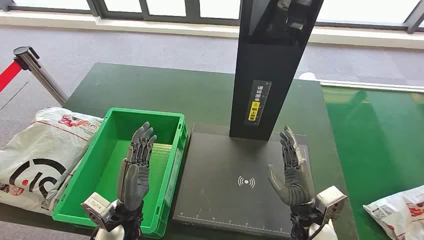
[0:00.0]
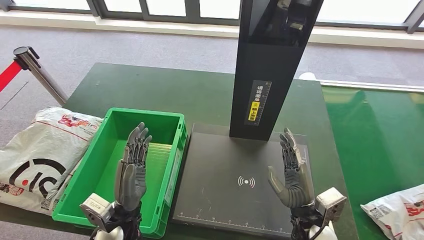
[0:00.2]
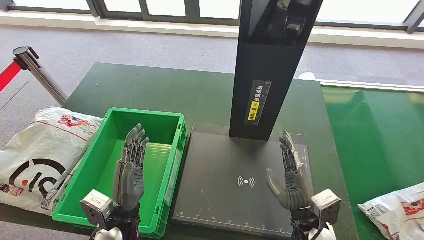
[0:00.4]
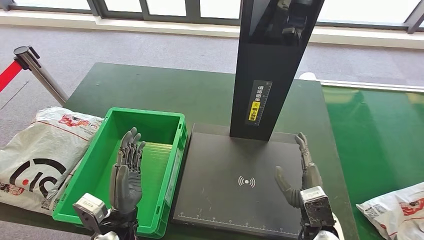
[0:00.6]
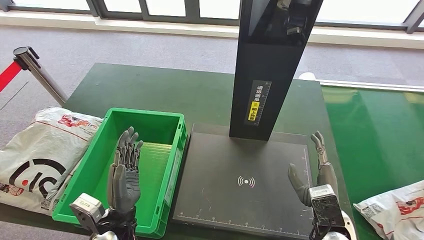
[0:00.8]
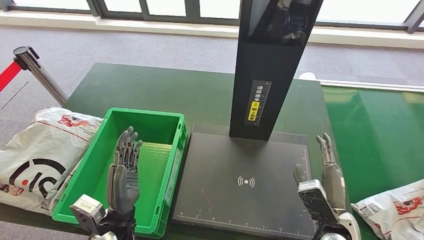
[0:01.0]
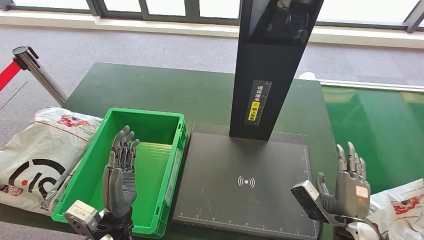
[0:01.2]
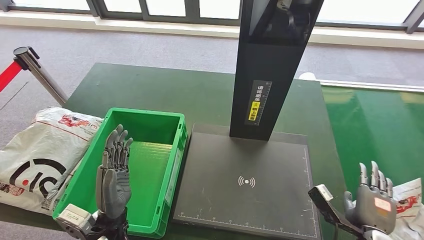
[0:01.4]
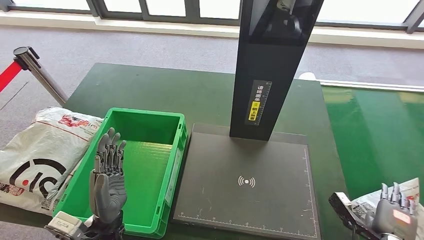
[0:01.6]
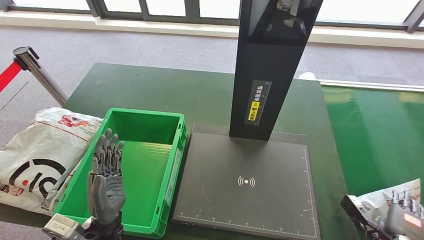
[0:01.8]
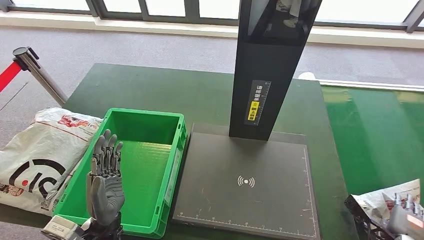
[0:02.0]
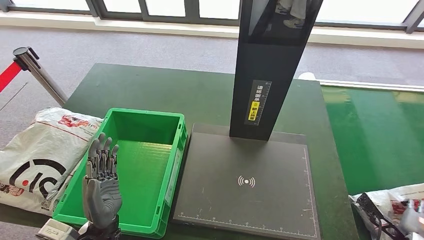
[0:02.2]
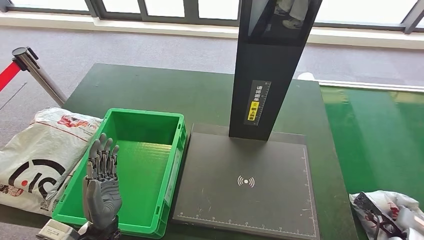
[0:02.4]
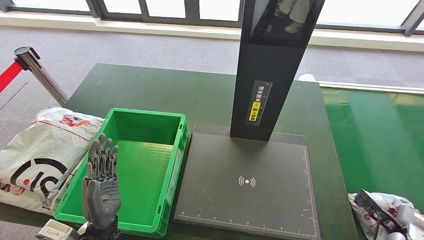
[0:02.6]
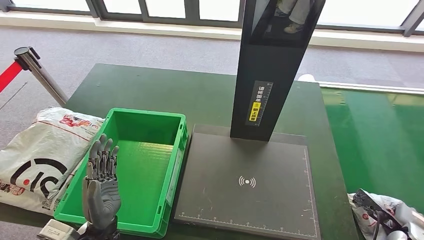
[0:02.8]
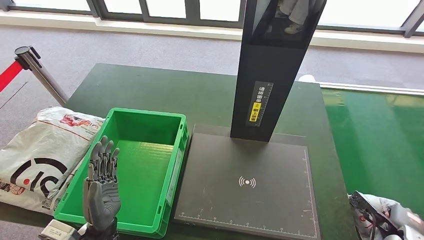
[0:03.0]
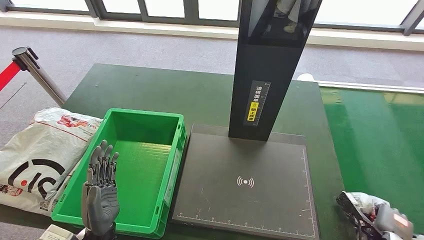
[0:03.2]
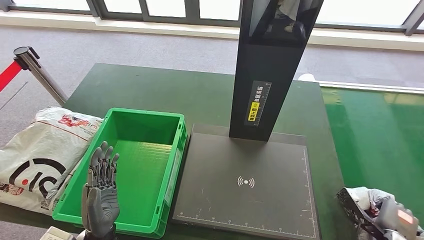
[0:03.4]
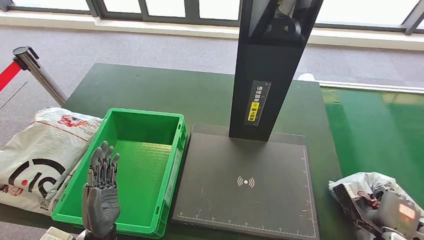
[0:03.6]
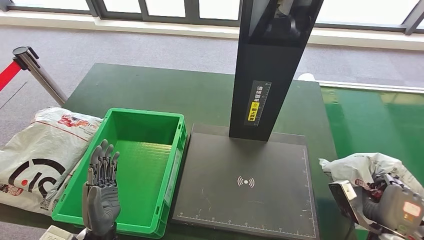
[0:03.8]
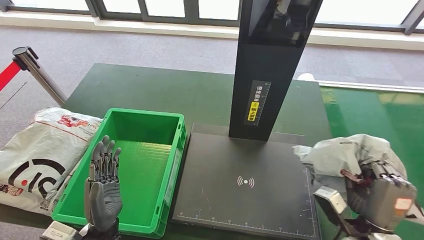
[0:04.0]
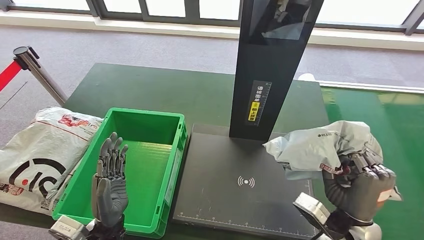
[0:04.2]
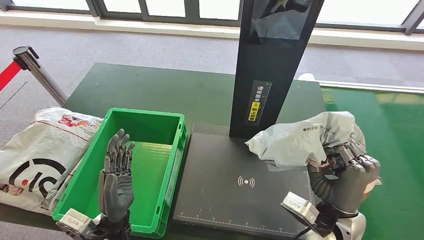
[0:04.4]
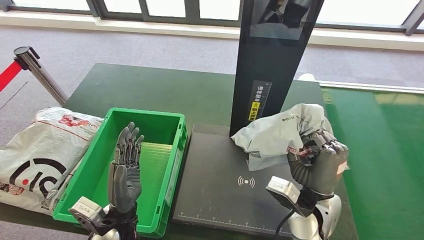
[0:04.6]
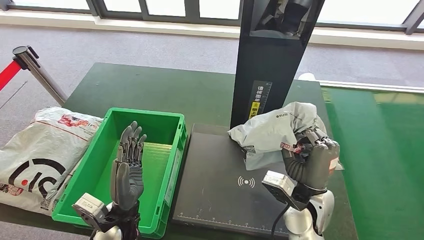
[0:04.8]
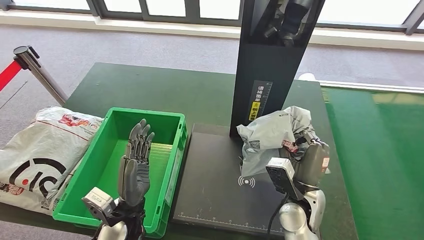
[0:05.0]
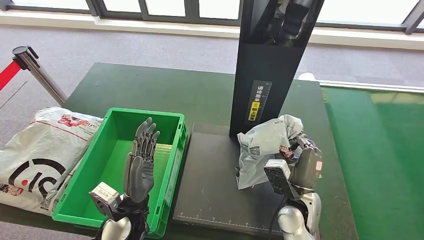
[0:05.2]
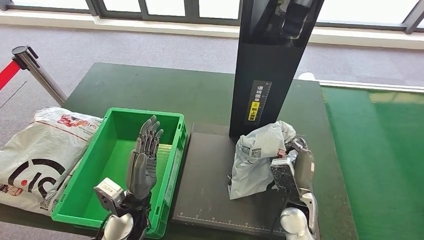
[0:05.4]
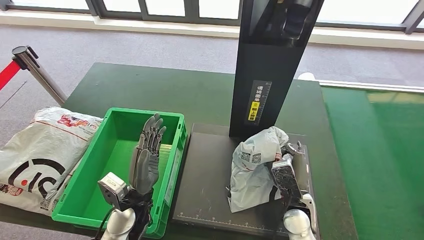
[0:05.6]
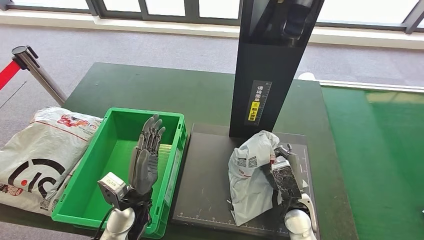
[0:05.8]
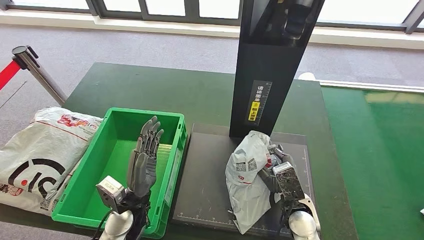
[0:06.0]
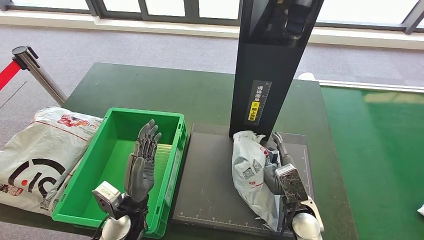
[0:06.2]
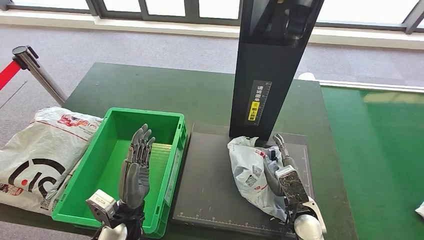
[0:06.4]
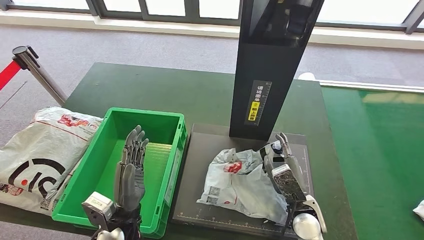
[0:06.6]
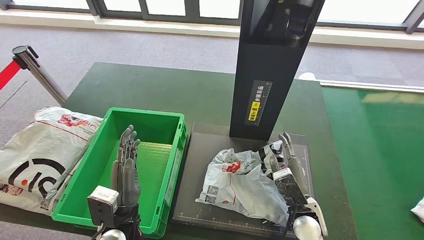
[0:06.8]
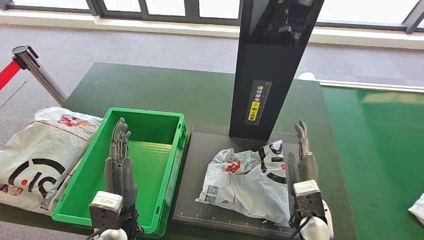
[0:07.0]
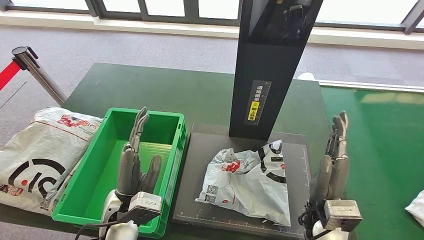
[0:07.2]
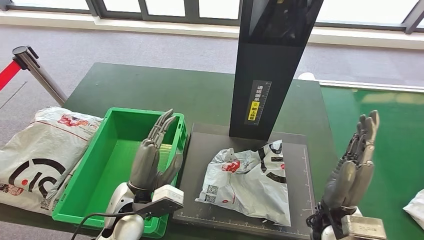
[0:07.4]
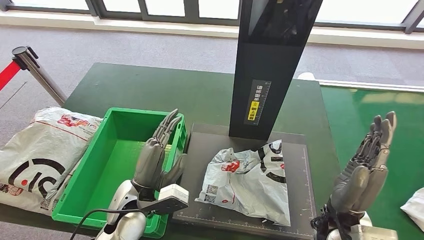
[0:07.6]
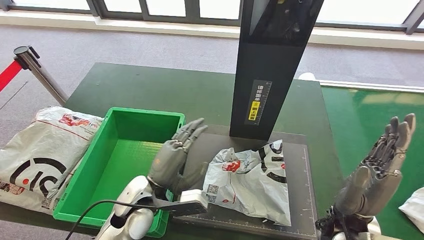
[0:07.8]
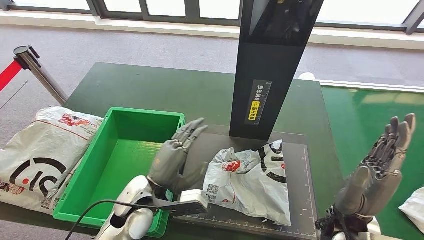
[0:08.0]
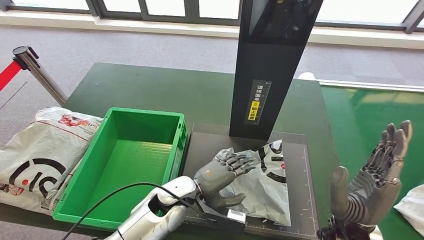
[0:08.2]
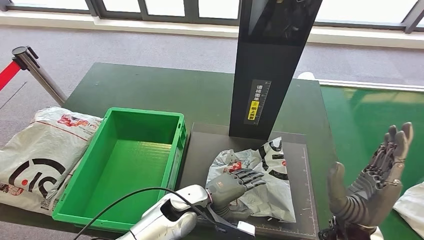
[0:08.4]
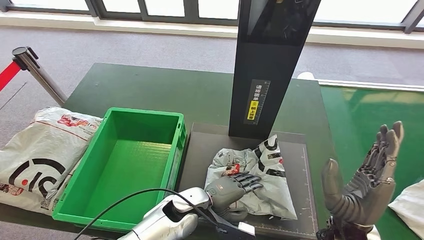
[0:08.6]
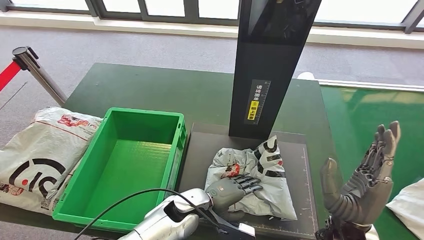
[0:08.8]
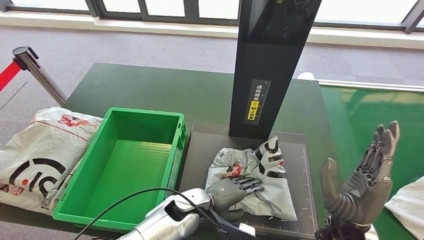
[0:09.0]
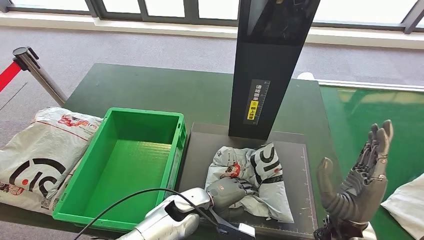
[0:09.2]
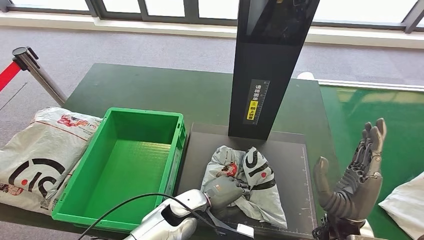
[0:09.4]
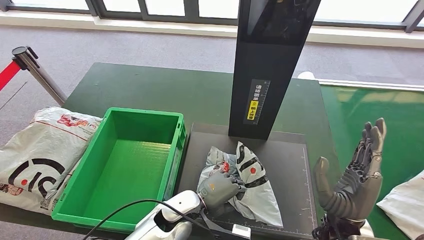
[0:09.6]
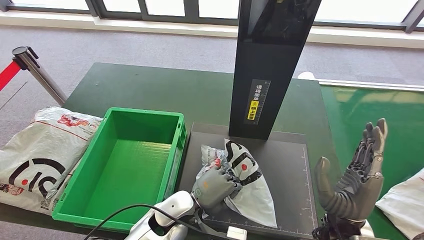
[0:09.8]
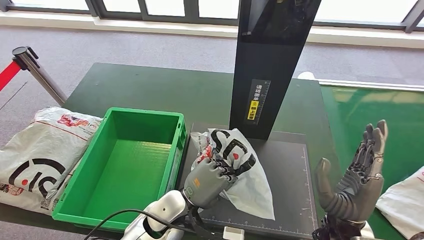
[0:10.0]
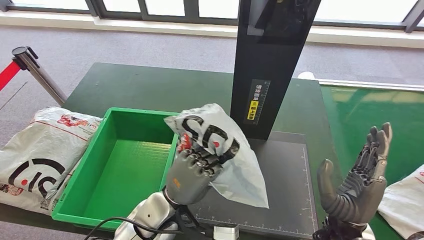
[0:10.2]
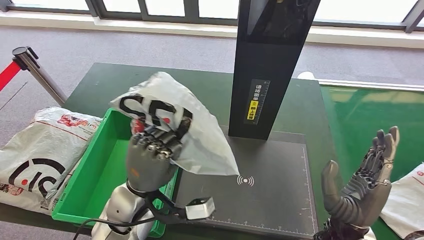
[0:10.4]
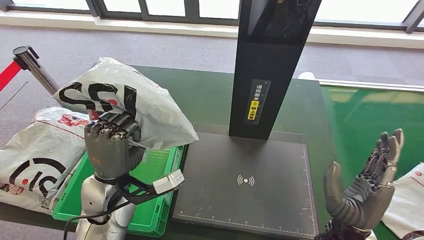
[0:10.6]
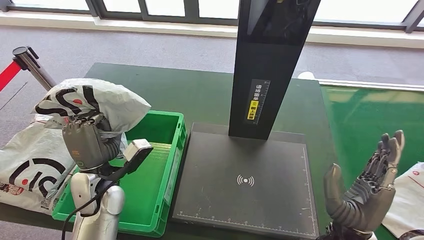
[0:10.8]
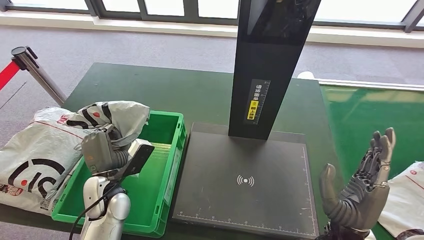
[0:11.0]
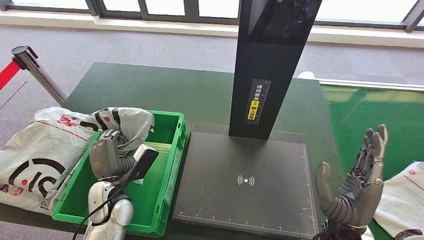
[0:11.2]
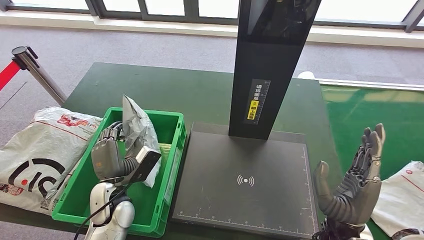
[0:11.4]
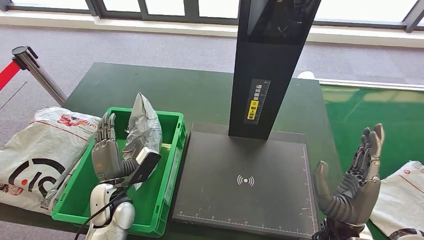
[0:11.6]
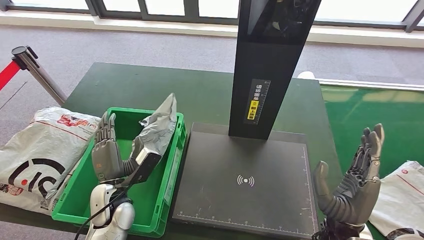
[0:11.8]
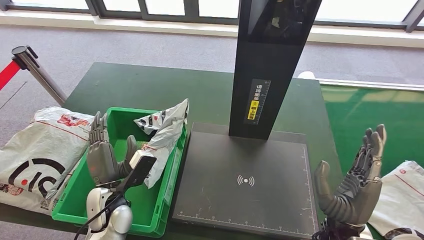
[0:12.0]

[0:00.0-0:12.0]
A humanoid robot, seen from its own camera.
Step, 0:00.0 to 0:03.6: Take the parcel off the conveyor belt.
Step, 0:03.8 to 0:06.8: Place the parcel onto the inbound machine.
Step, 0:07.2 to 0:10.0: Pick up the parcel from the inbound machine.
0:01.6 to 0:03.0: The right hand goes roughly 10 cm to the right and downward.
0:06.0 to 0:07.6: The left hand changes place by approximately 5 cm. Meanwhile the right hand shifts about 10 cm upward.
0:07.6 to 0:09.0: The left hand heads to the right and downward, covering approximately 15 cm.
0:10.4 to 0:12.0: The left hand moves downward and to the left, roughly 10 cm.

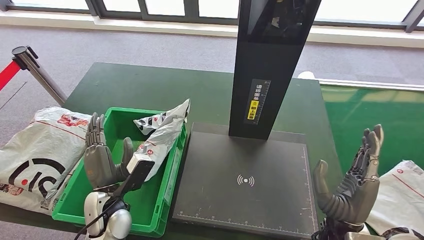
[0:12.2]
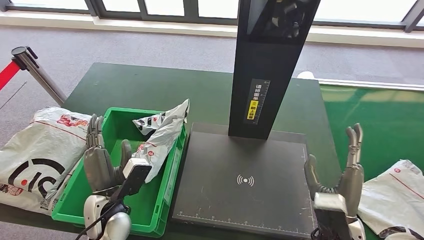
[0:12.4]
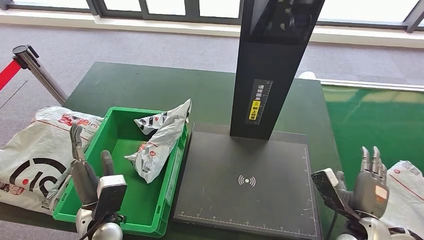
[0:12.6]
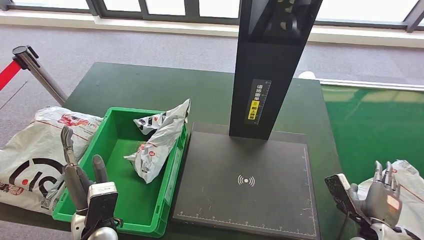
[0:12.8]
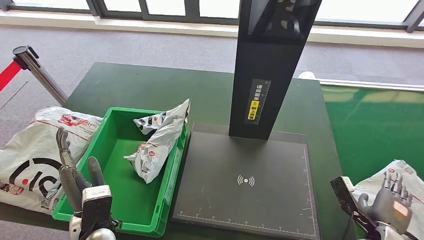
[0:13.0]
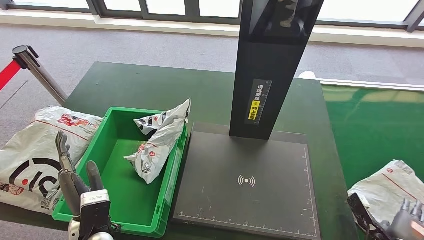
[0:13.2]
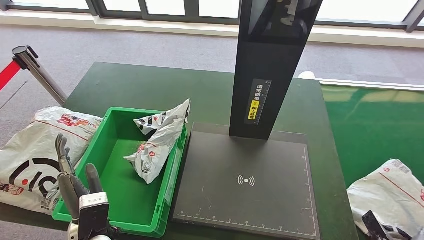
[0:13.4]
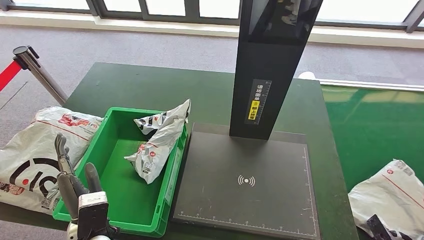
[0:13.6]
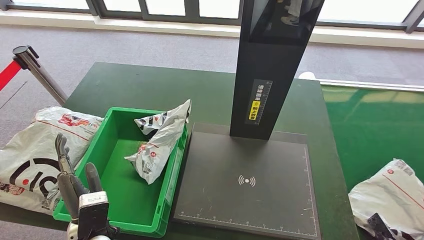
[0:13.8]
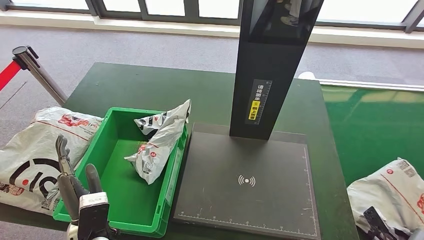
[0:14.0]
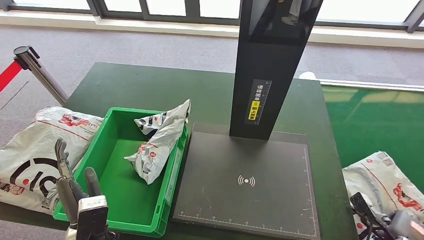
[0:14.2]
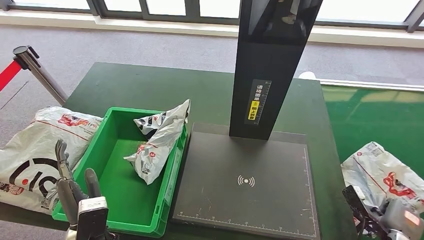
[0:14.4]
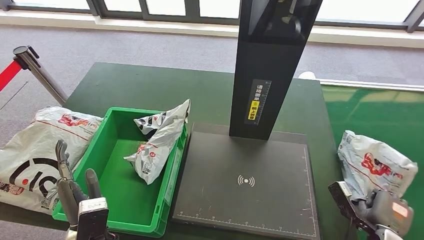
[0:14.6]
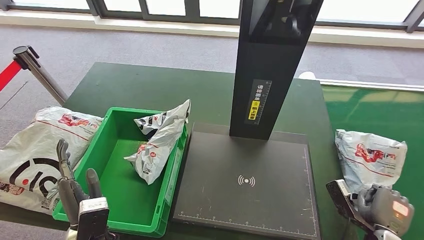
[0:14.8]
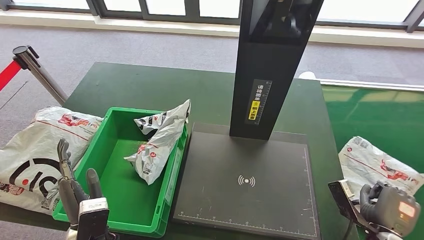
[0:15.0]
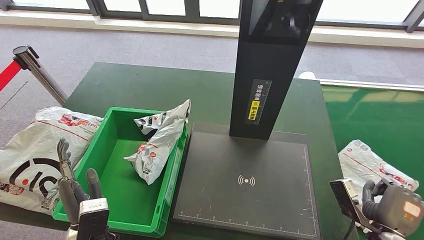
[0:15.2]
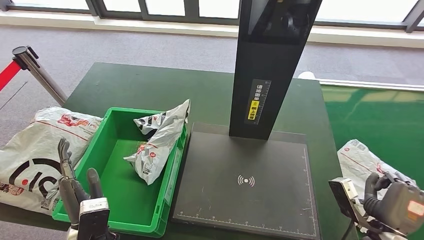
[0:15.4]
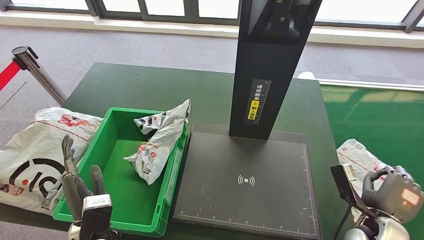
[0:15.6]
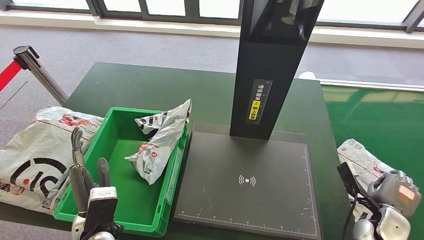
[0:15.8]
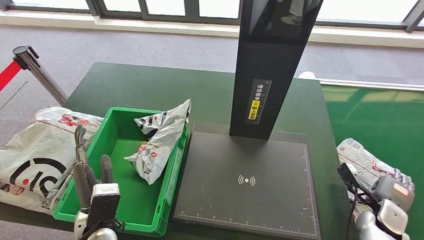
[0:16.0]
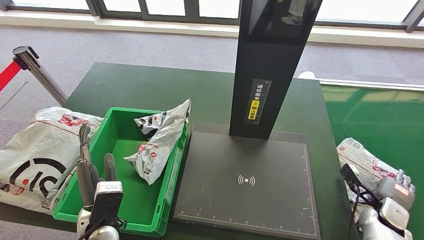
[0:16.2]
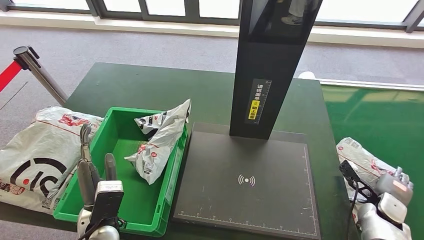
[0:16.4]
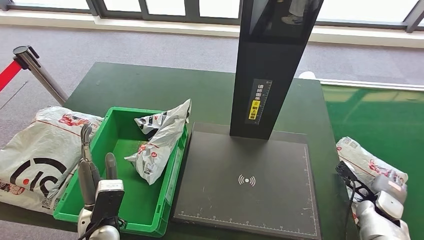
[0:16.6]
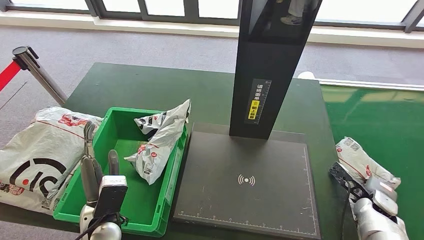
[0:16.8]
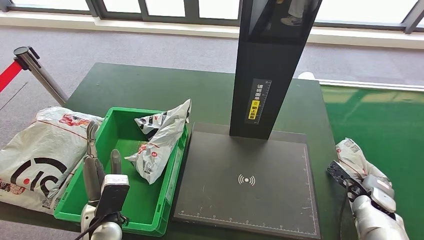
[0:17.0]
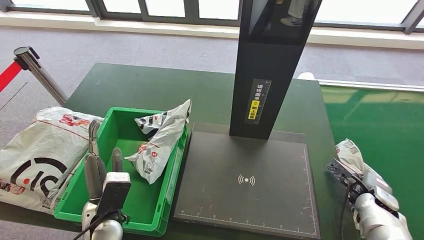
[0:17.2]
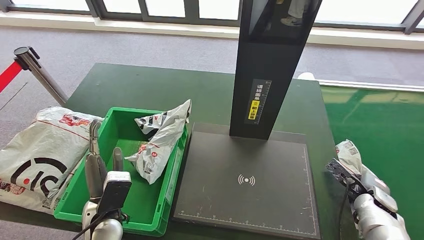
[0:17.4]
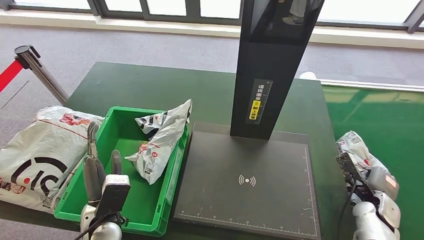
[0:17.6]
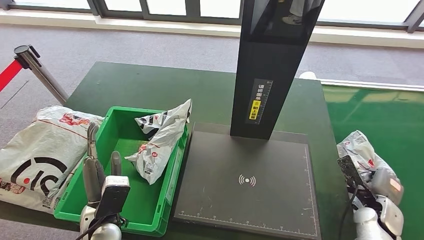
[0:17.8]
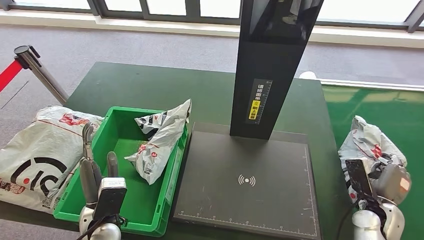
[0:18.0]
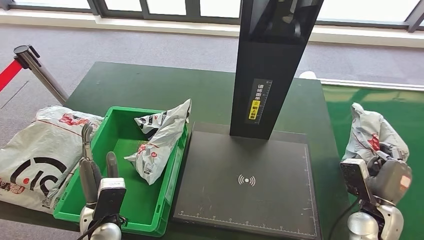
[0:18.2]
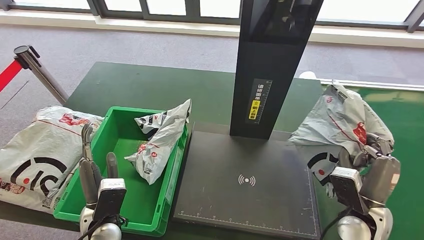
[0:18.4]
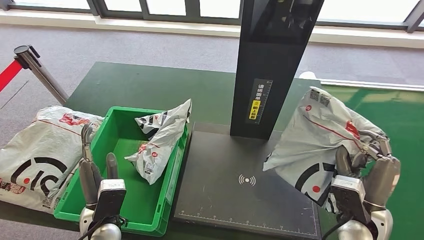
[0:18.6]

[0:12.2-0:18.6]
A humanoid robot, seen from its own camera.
0:12.2 to 0:13.8: The left hand goes approximately 5 cm backward, while the right hand shifts roughly 30 cm to the right and downward.
0:13.8 to 0:15.4: The right hand goes approximately 15 cm to the left and upward.
0:15.4 to 0:17.0: The right hand is displaced forward, to the right and downward by about 15 cm.
0:17.0 to 0:18.6: The right hand moves to the left, upward and backward, approximately 20 cm.
